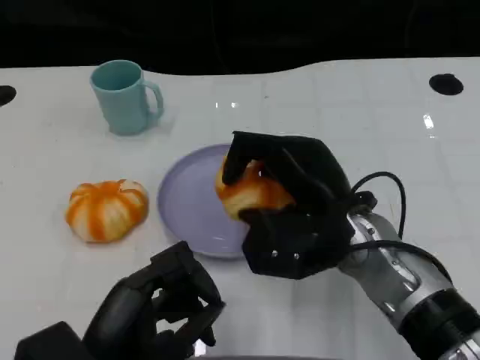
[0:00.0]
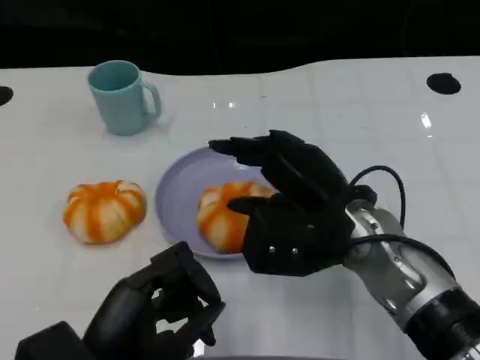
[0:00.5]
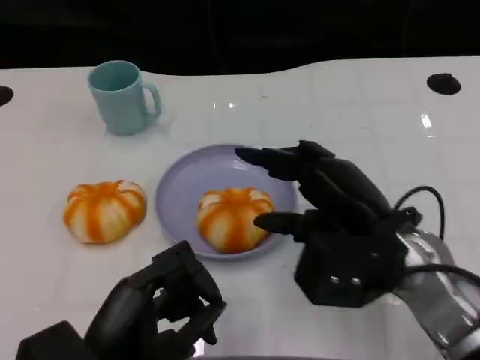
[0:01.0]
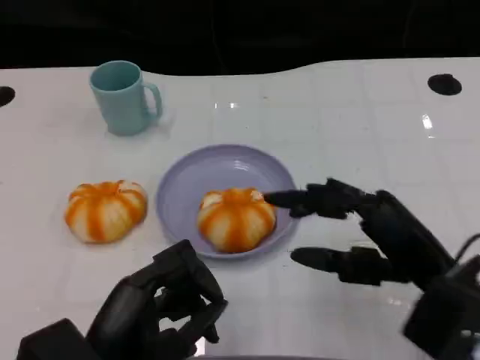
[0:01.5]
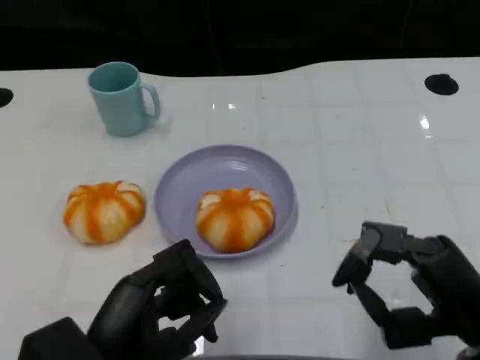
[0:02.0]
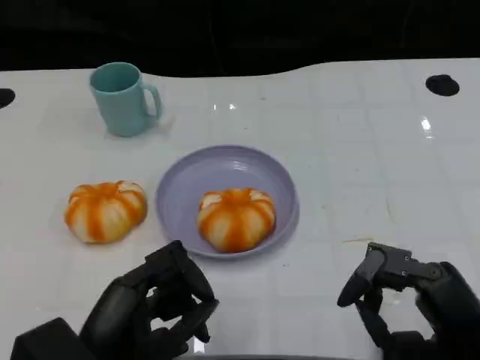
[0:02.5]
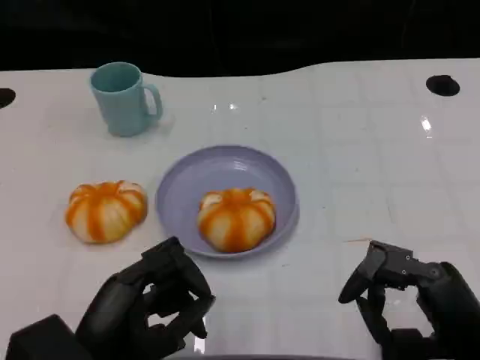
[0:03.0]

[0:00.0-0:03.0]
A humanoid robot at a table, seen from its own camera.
Task of the whole recording: Grasp the bread from the table and place it into the plate.
0:00.0 to 0:01.5: The right hand shifts about 10 cm to the right and backward.
0:01.5 to 0:03.0: The right hand shifts approximately 5 cm backward.

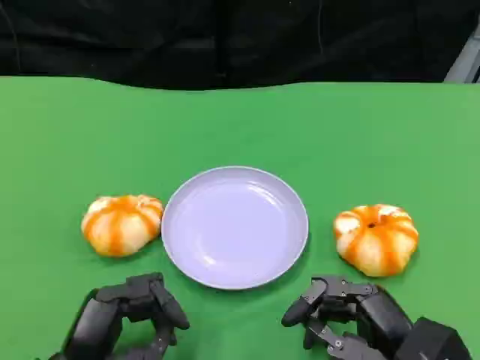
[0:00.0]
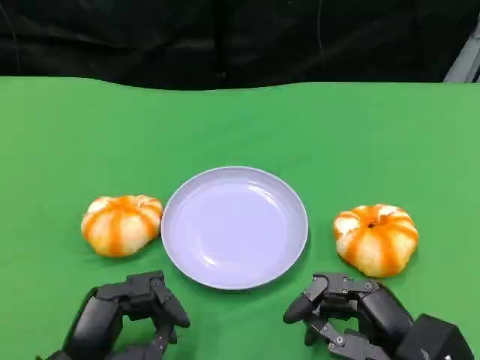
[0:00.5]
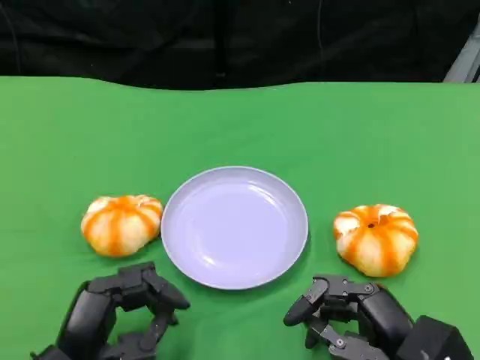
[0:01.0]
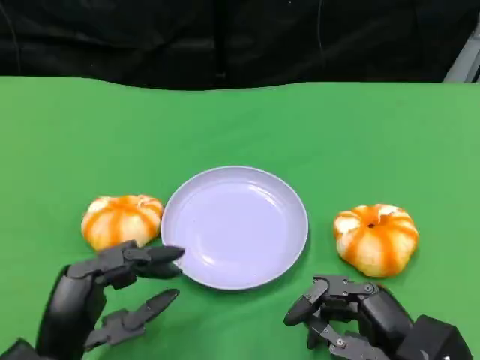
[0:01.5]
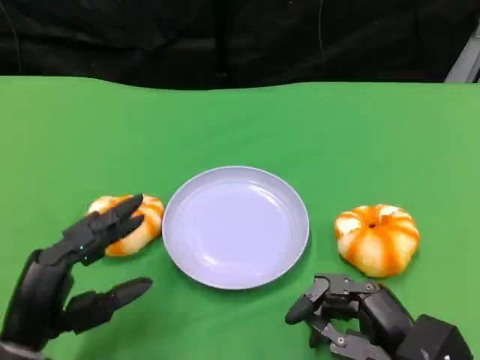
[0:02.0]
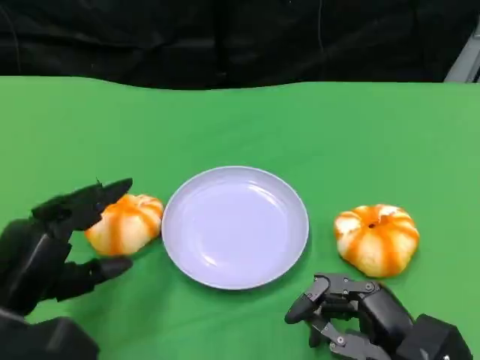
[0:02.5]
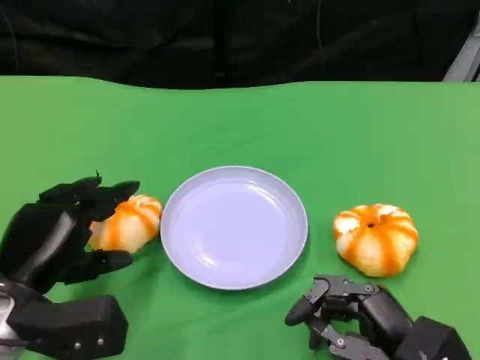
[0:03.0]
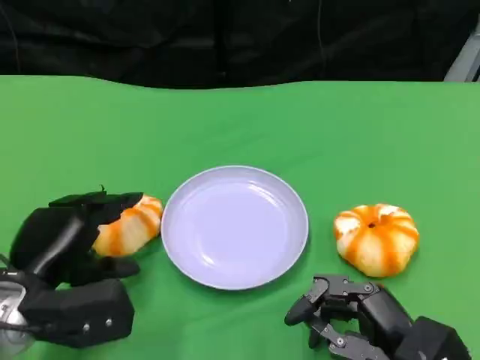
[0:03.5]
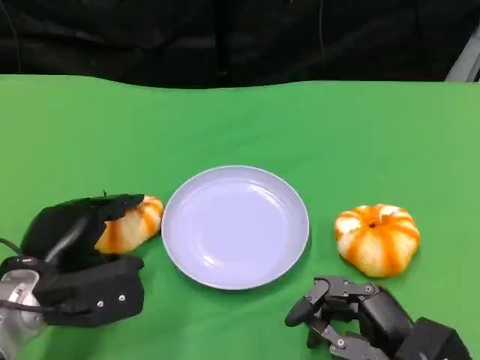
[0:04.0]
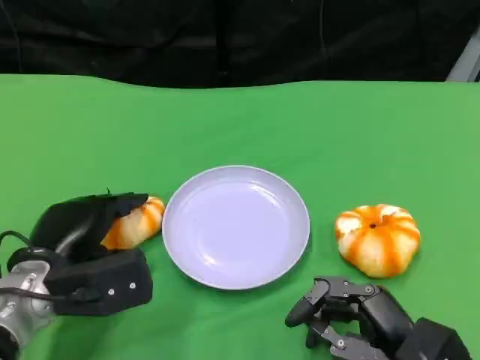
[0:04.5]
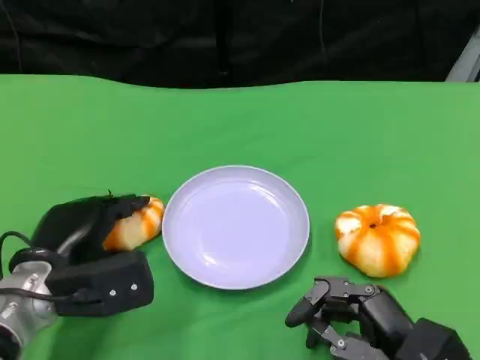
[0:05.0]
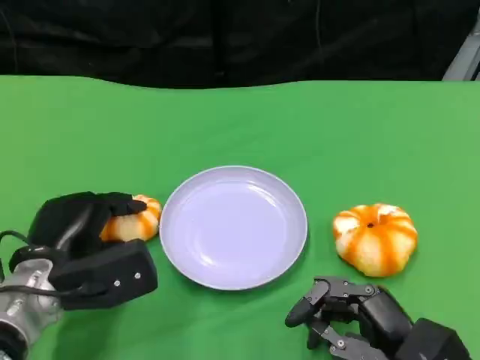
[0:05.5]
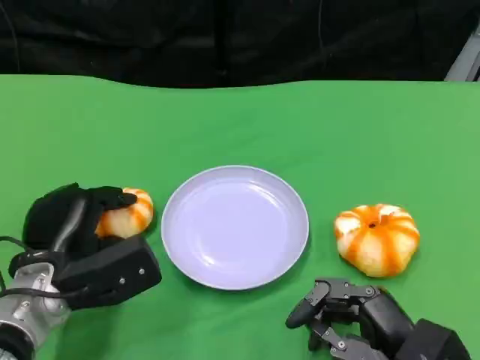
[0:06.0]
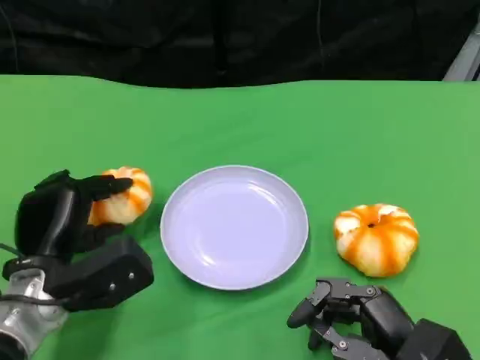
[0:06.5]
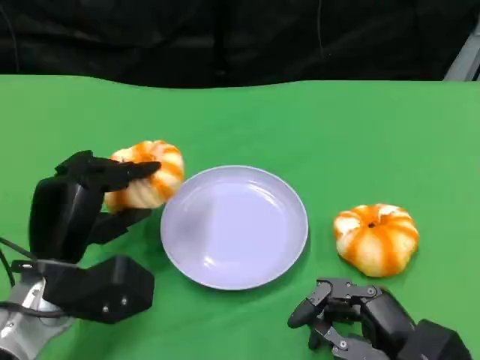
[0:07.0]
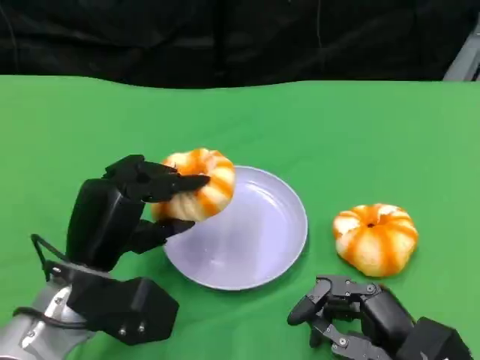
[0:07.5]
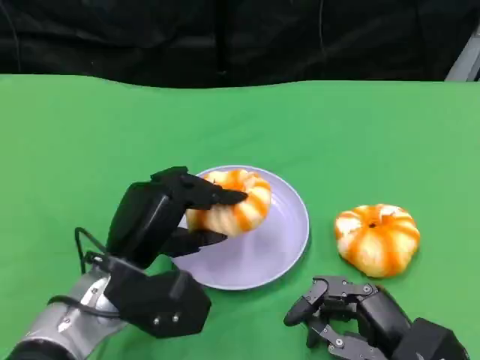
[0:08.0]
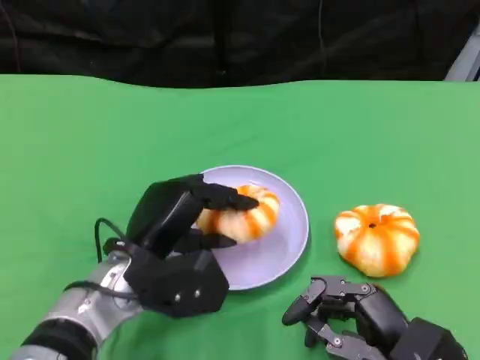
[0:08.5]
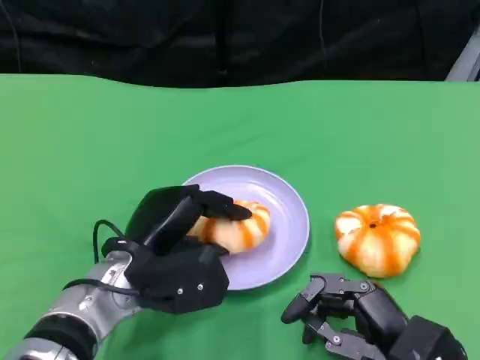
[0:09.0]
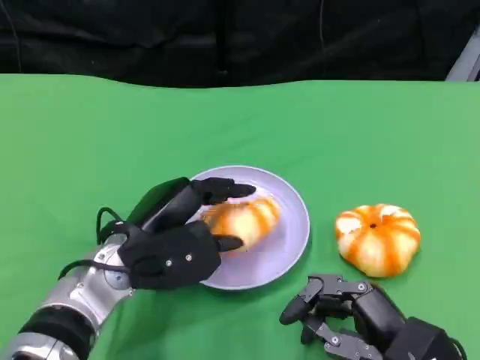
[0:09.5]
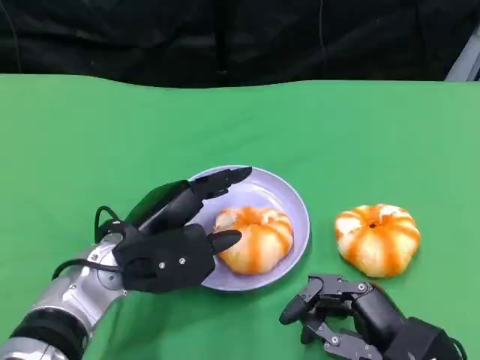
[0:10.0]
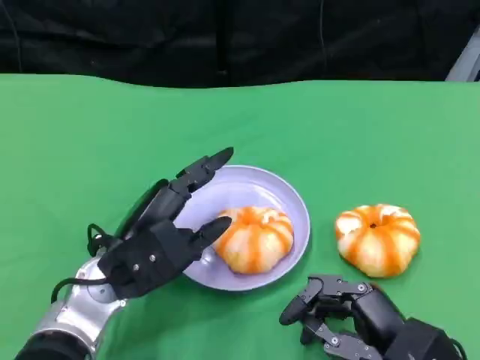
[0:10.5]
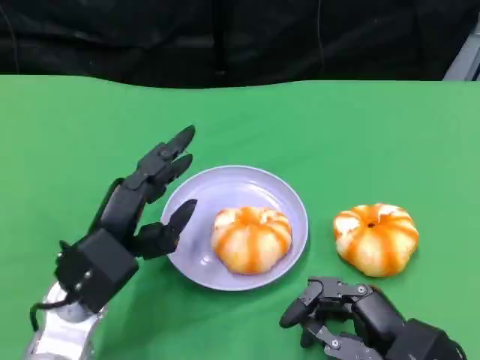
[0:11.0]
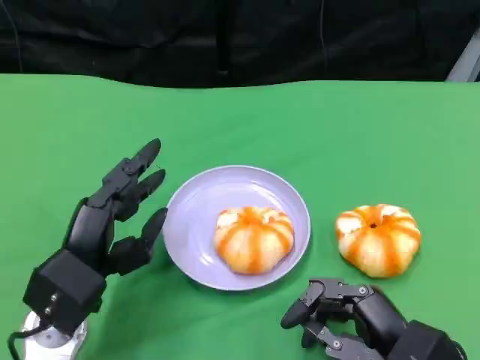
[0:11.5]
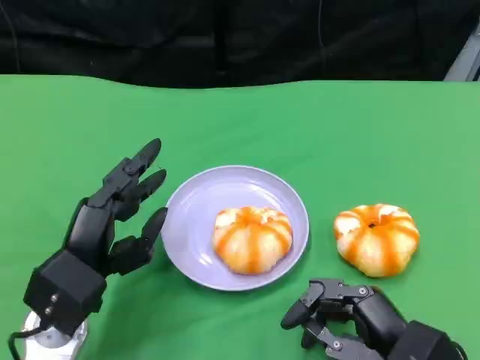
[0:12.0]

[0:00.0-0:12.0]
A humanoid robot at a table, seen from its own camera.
Task of the whole recording: Grasp the bread from the table and place it into the plate.
0:00.0 to 0:02.0: The left hand changes place by about 5 cm.
0:02.0 to 0:04.0: The left hand shifts approximately 10 cm forward.
0:04.0 to 0:06.0: The hands make only small movements.
0:06.0 to 0:08.0: The left hand moves to the right, roughly 5 cm.
0:10.0 to 0:12.0: The left hand ends up roughly 5 cm from where it was.

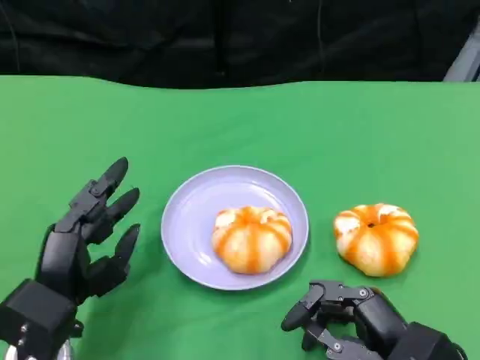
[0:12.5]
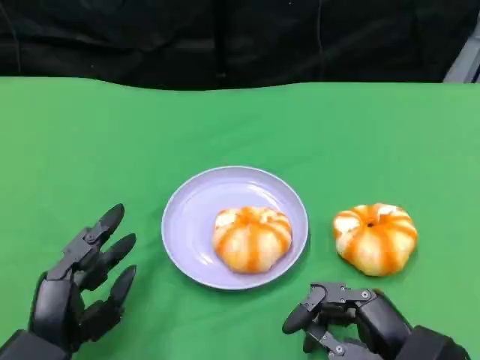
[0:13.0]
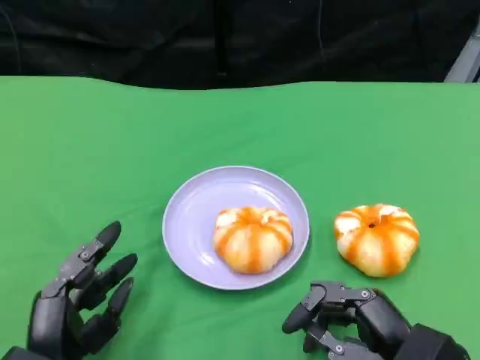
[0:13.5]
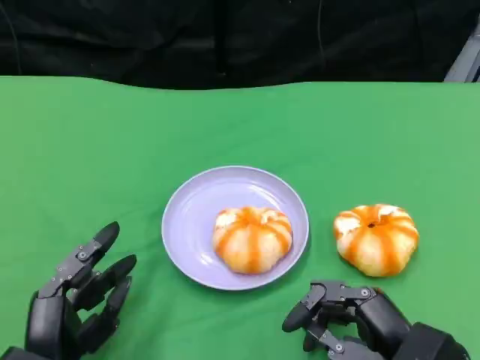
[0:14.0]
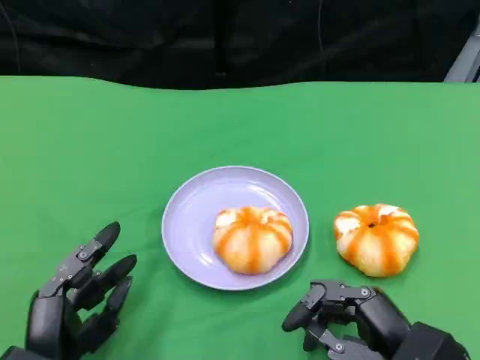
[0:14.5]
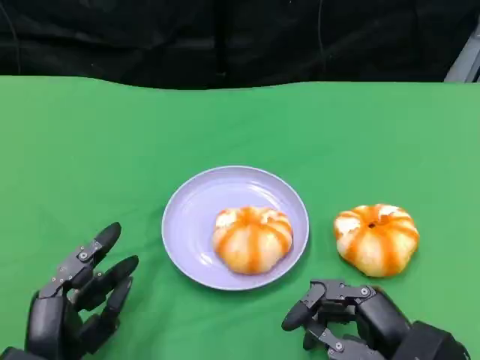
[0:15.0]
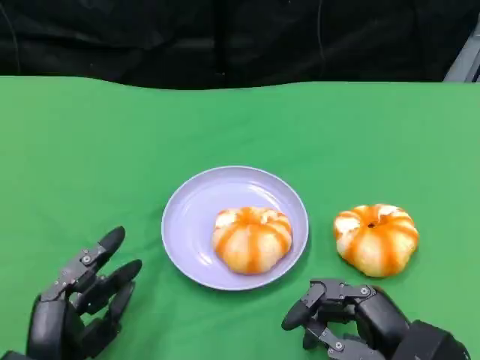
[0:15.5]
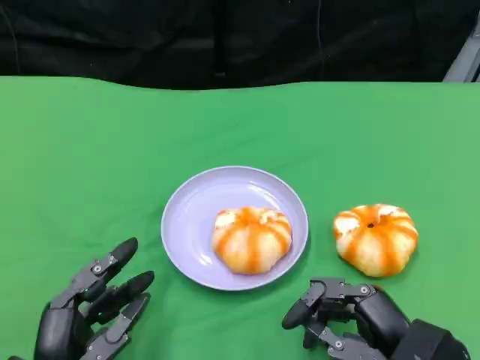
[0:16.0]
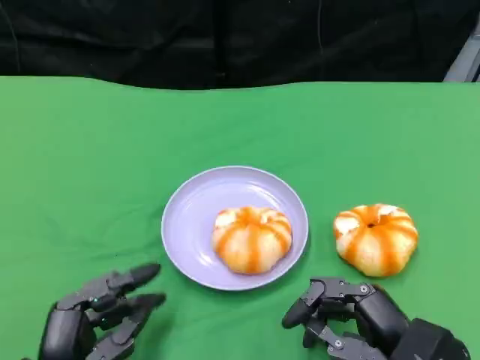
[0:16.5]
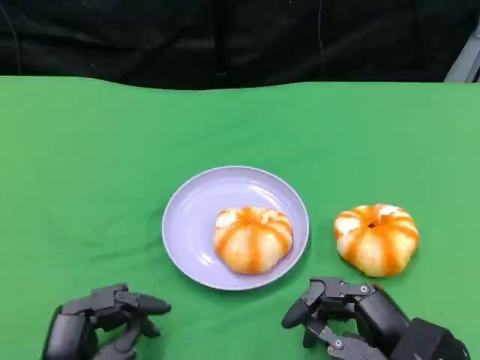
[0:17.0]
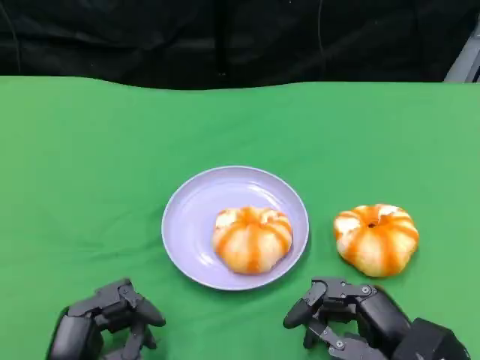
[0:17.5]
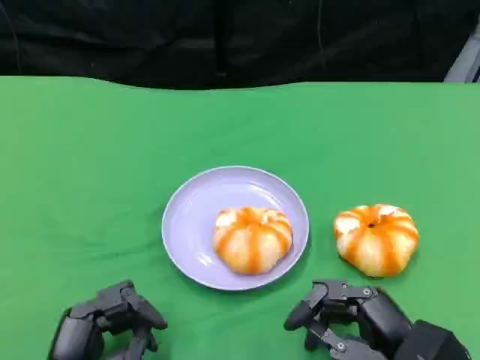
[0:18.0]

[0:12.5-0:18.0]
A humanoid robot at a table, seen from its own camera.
Task of the whole recording: Grasp the bread from the table and place it into the plate.
0:12.5 to 0:14.5: The left hand moves backward, approximately 5 cm.
0:14.5 to 0:18.0: The hands make only small movements.

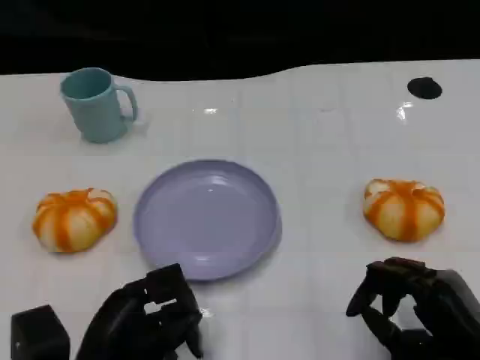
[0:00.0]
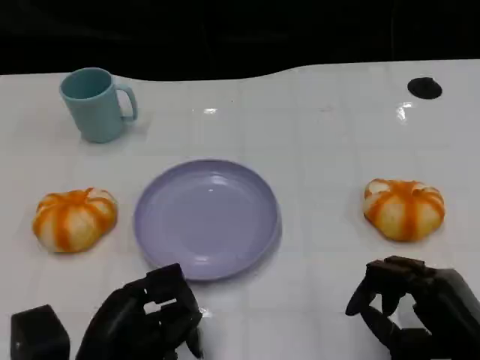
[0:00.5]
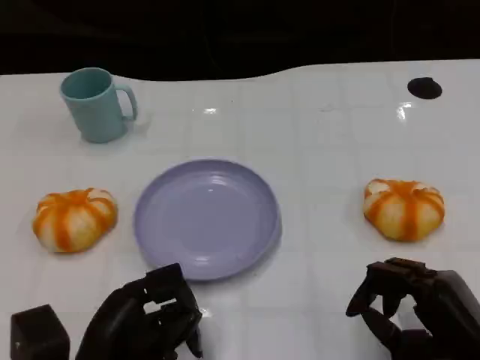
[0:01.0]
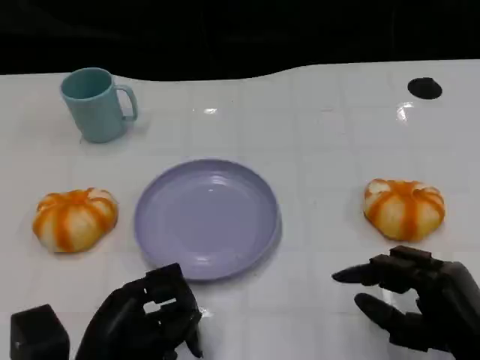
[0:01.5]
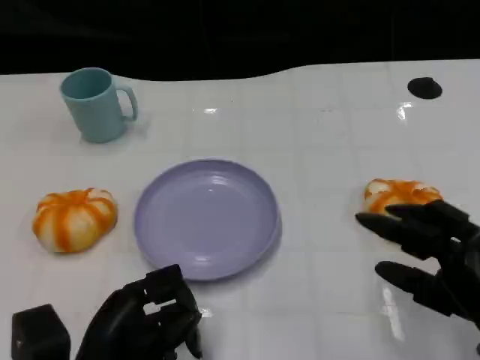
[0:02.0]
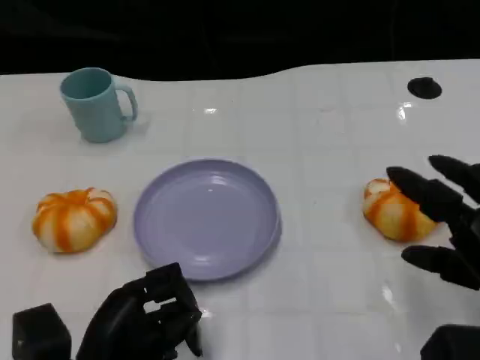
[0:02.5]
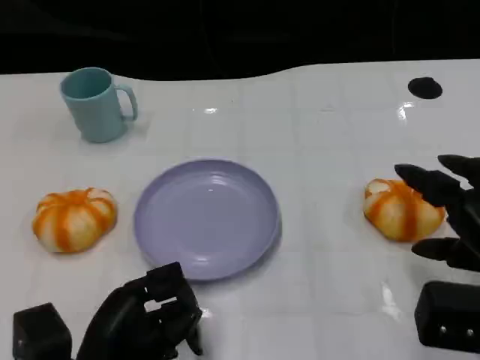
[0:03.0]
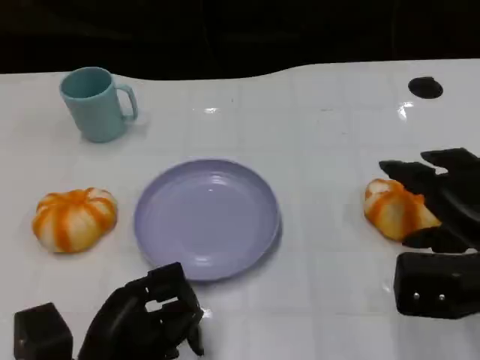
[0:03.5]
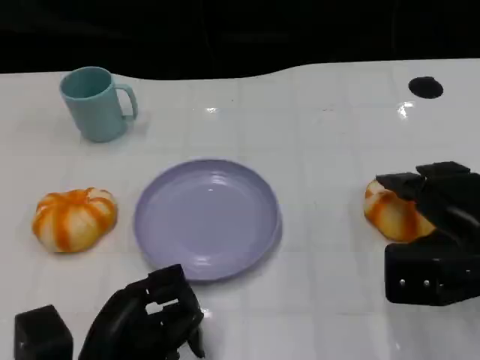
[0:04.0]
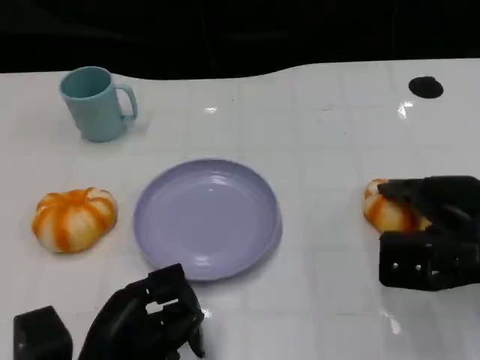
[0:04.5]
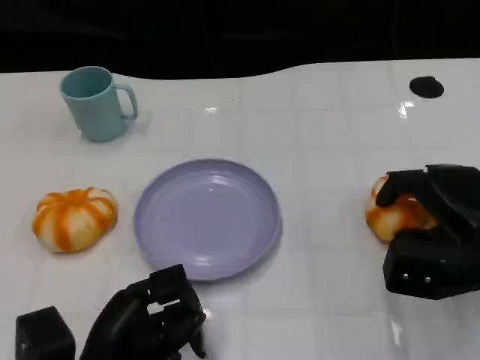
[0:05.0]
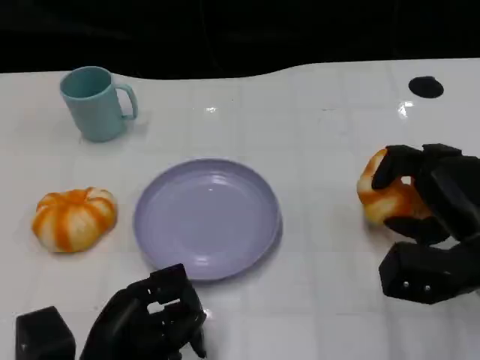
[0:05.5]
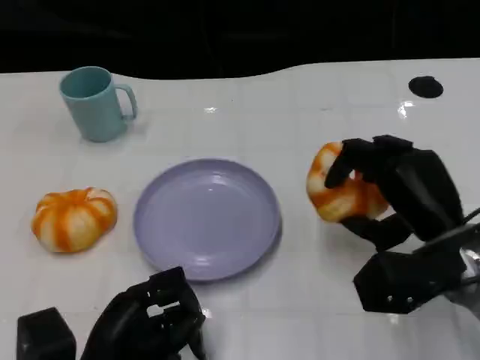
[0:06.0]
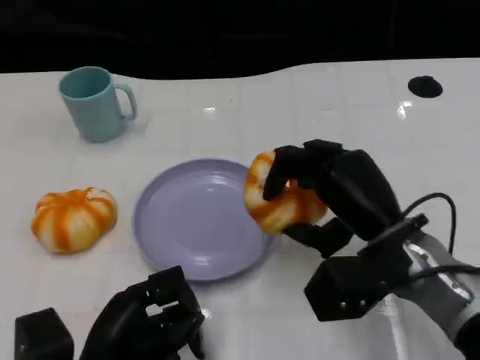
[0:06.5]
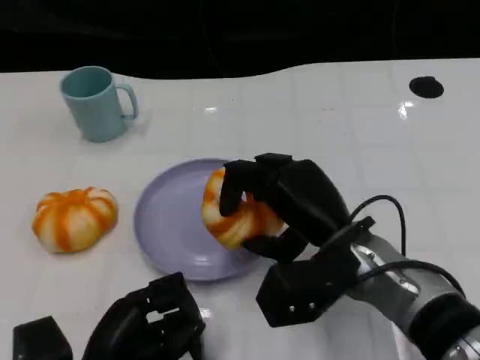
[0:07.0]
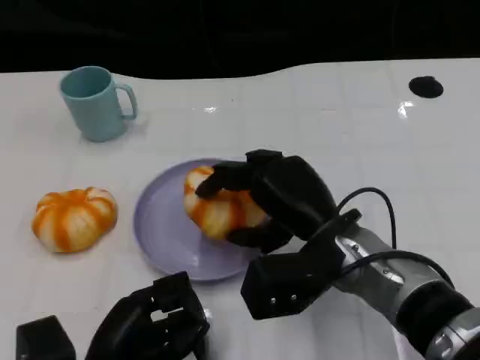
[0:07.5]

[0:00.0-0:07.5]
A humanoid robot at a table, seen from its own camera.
Task of the whole recording: Grasp the bread from the table and place it into the plate.
0:00.0 to 0:02.0: The hands stay close to where they were, moving slightly.
0:02.0 to 0:04.0: The right hand heads forward, covering roughly 10 cm.
0:05.5 to 0:07.5: The right hand goes roughly 15 cm to the left.
